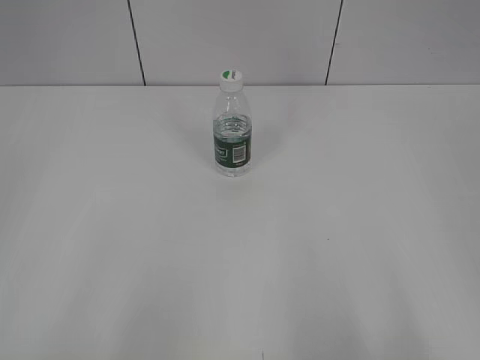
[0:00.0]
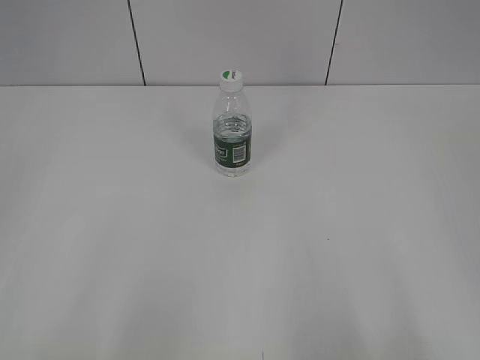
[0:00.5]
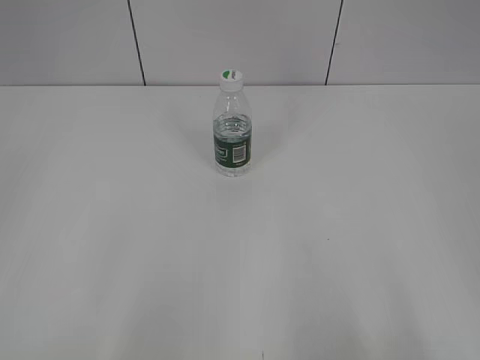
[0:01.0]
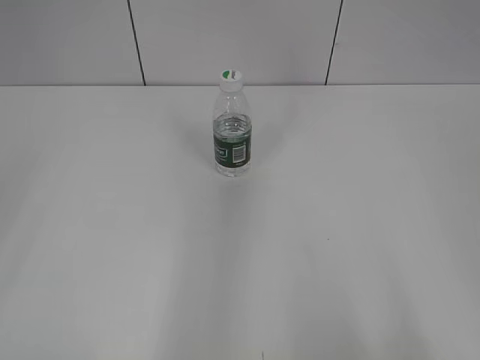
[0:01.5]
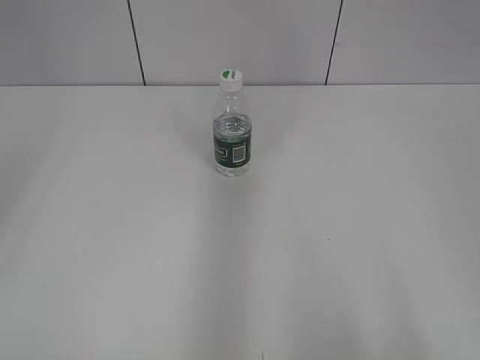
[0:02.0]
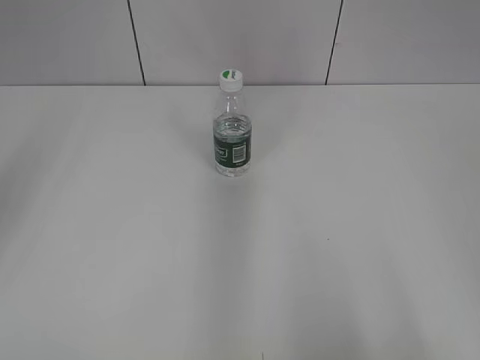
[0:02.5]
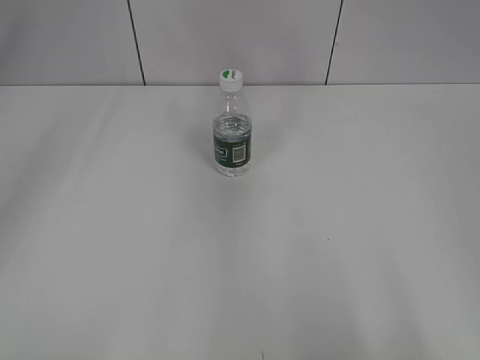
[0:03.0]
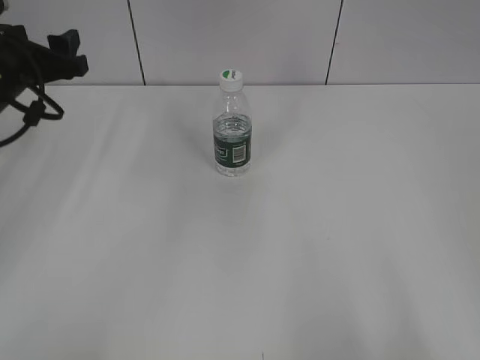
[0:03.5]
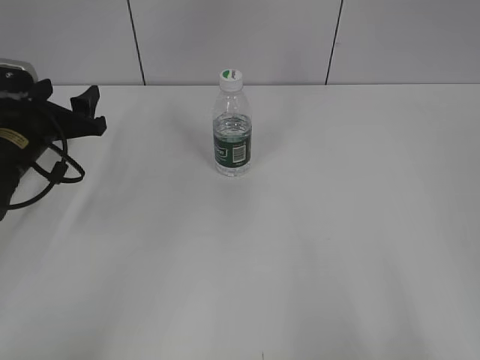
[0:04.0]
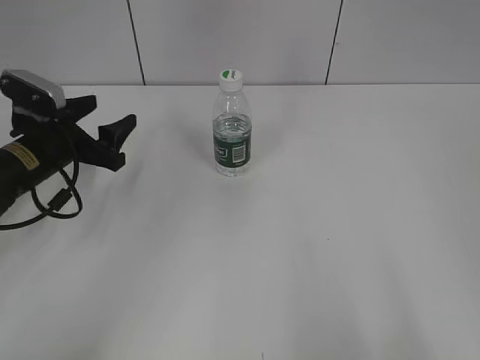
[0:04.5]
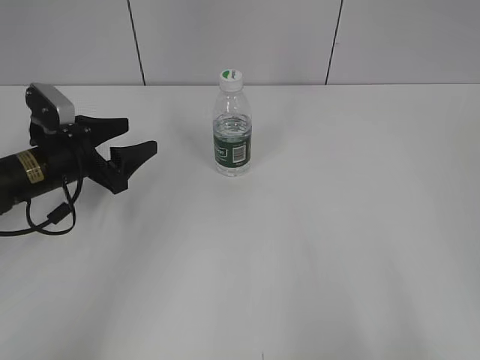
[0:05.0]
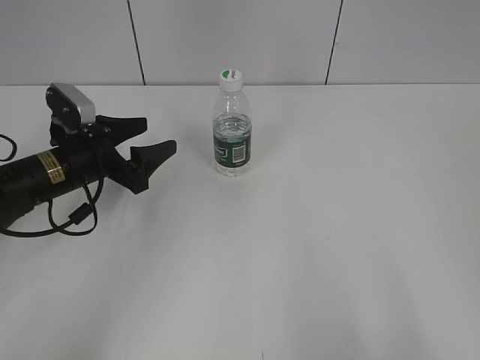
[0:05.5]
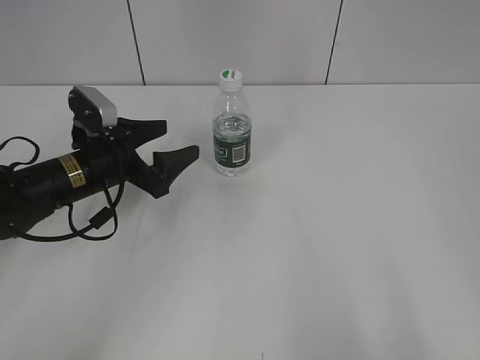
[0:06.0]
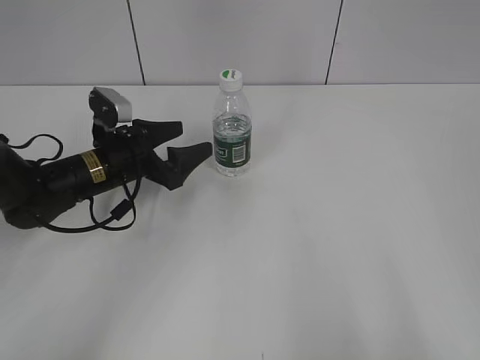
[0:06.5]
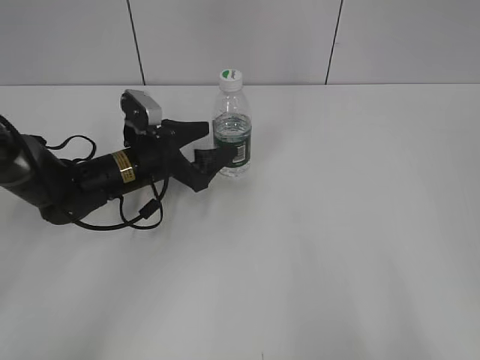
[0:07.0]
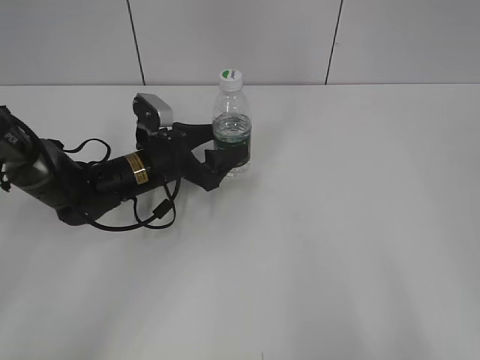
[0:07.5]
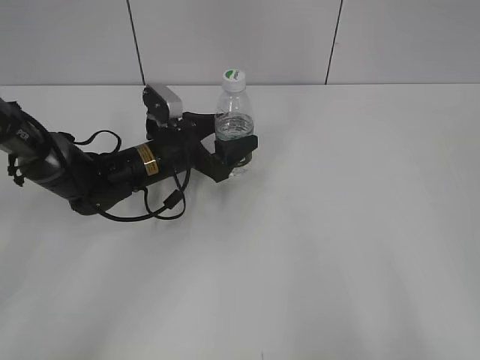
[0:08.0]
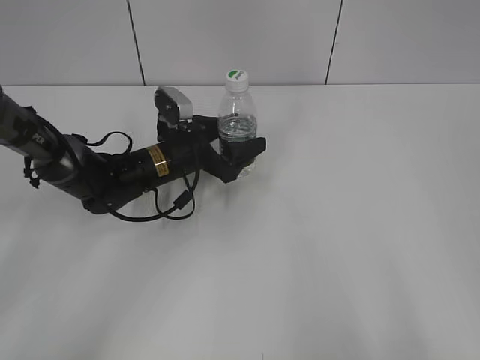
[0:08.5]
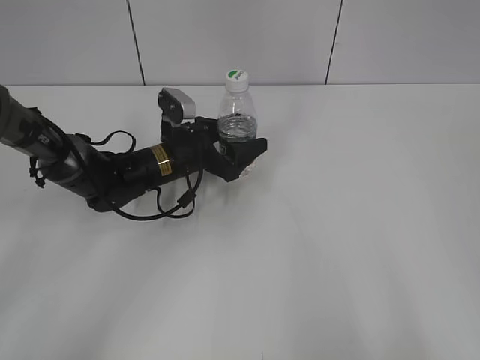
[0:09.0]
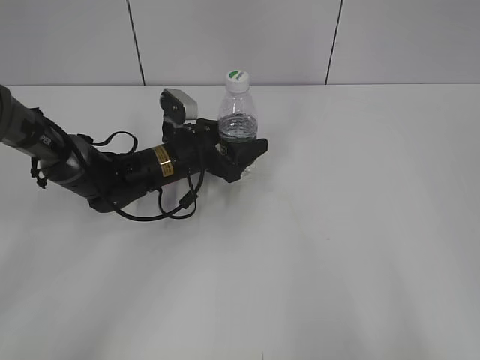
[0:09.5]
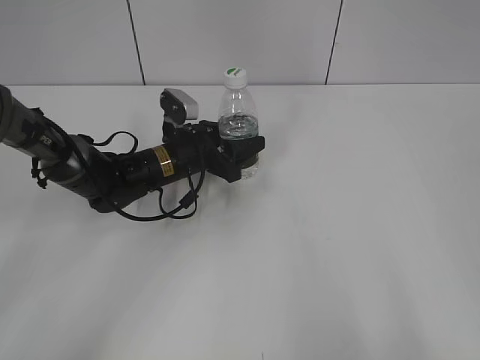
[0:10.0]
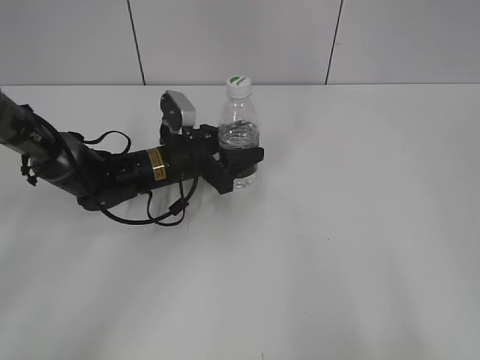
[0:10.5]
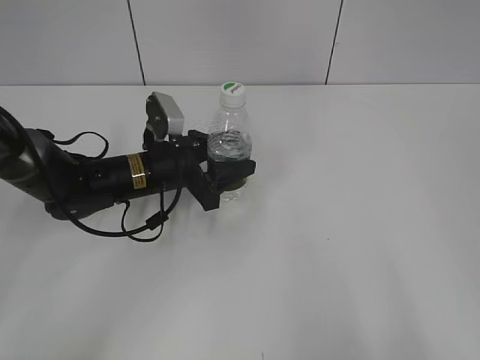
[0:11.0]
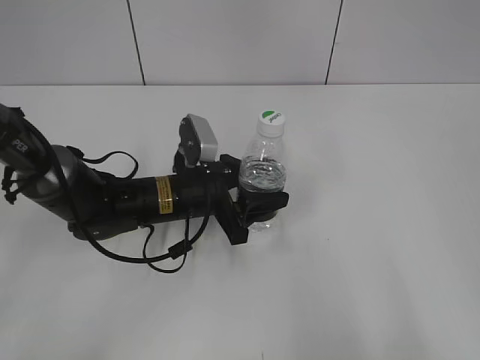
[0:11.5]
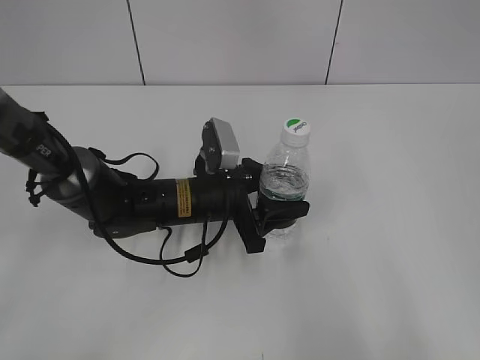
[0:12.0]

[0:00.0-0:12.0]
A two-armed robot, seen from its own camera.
Step, 0:00.0 to 0:09.5: Grasp the bottle and move it to the center of the table with the left gripper.
0:02.0 to 0:04.0: The left gripper shifts roughly 35 cm downward and forward.
0:04.0 to 0:06.0: The left gripper moves to the right, roughly 10 cm.
0:06.0 to 0:08.0: The left gripper shifts some 10 cm to the right and forward.
0:08.0 to 0:10.0: The left gripper closes its fingers.
0:10.0 to 0:12.0: The left gripper heads backward, covering about 10 cm.

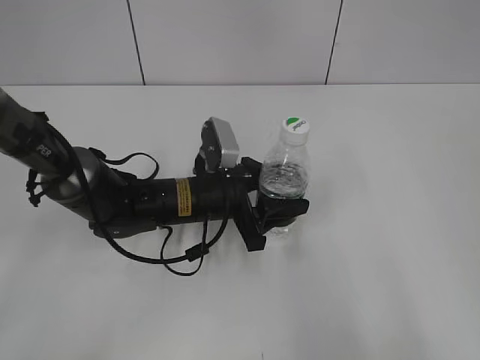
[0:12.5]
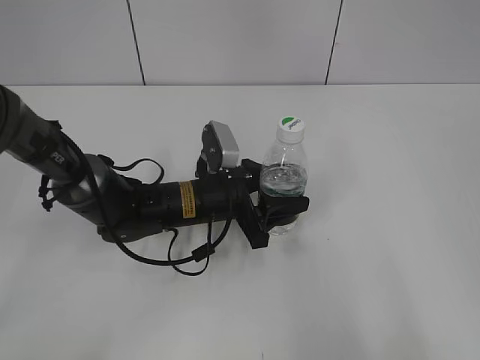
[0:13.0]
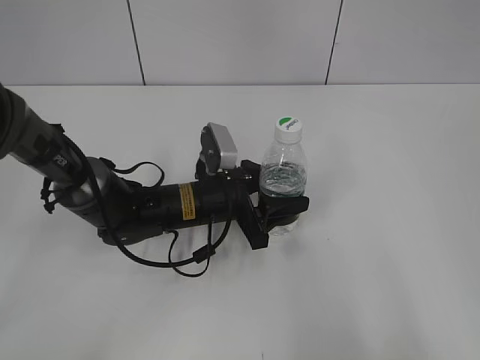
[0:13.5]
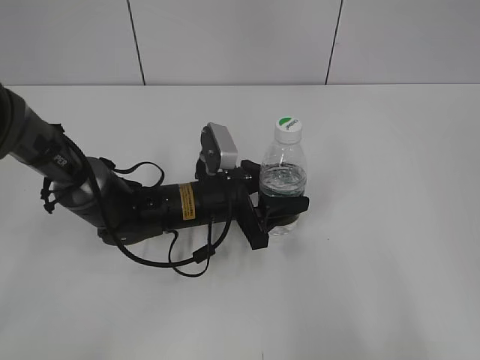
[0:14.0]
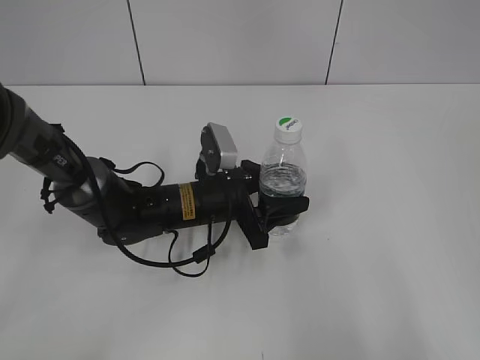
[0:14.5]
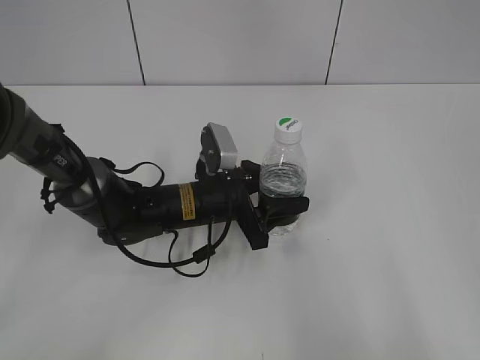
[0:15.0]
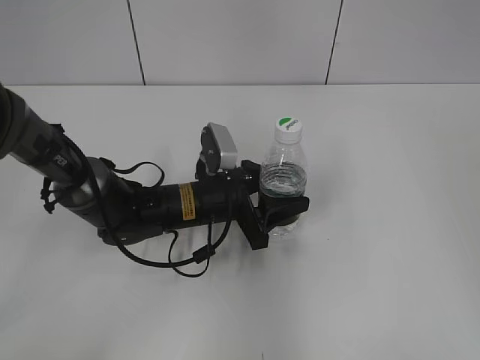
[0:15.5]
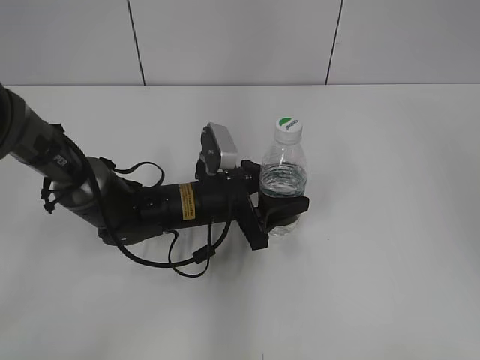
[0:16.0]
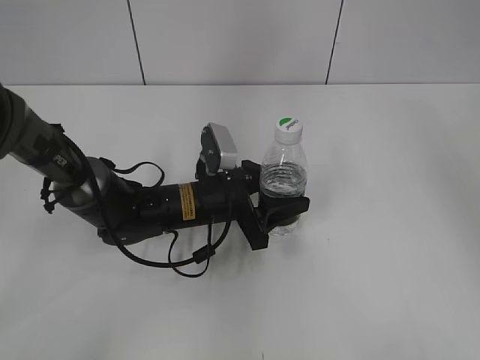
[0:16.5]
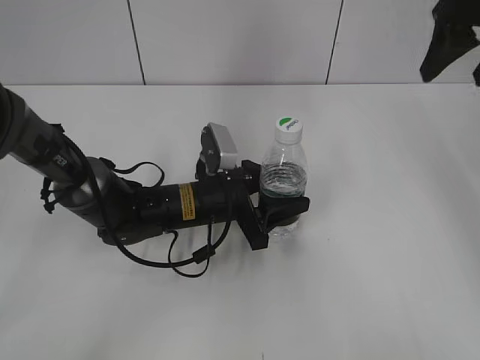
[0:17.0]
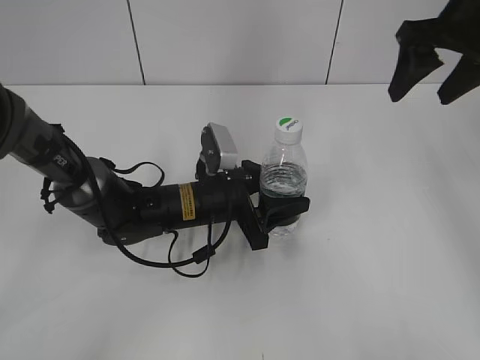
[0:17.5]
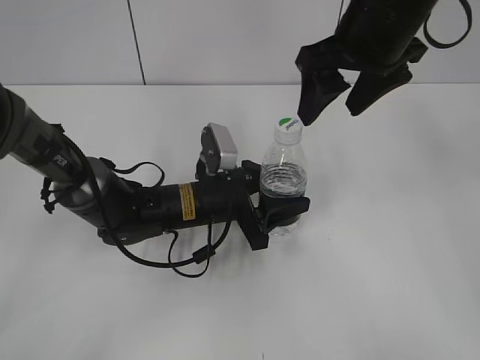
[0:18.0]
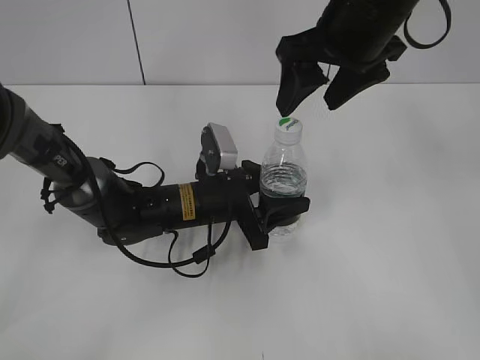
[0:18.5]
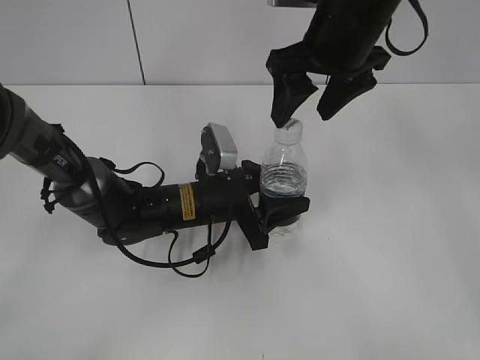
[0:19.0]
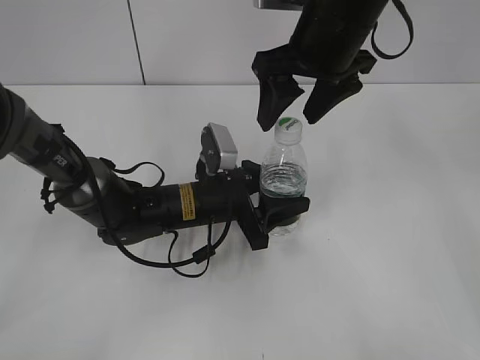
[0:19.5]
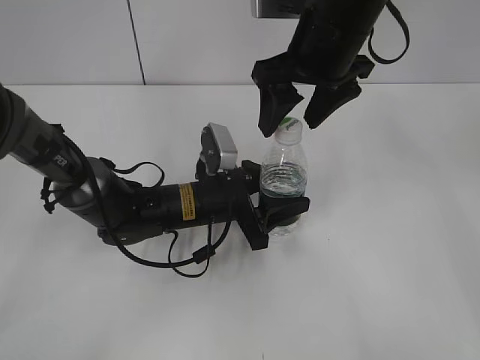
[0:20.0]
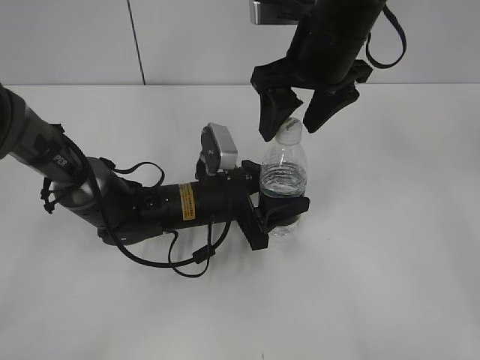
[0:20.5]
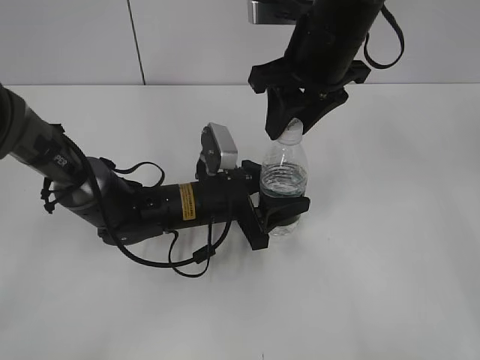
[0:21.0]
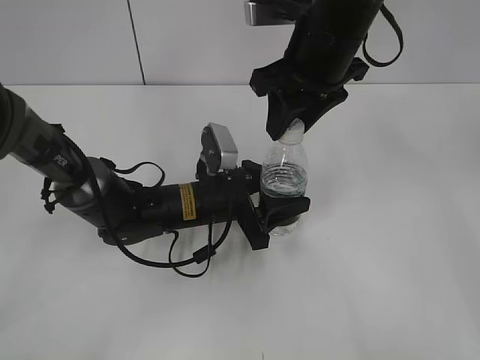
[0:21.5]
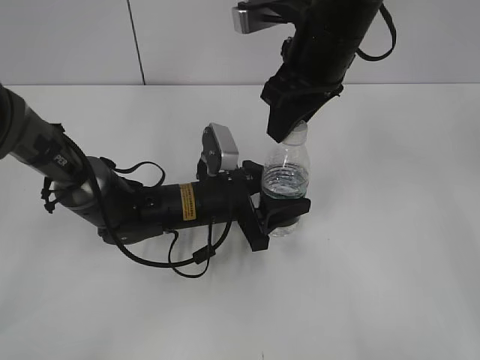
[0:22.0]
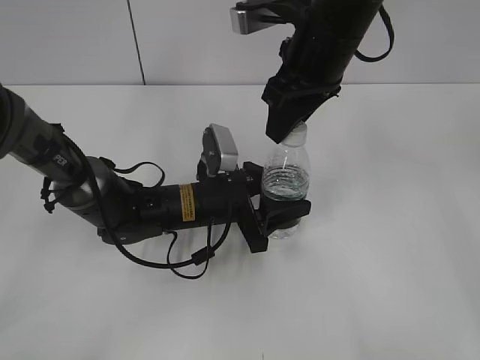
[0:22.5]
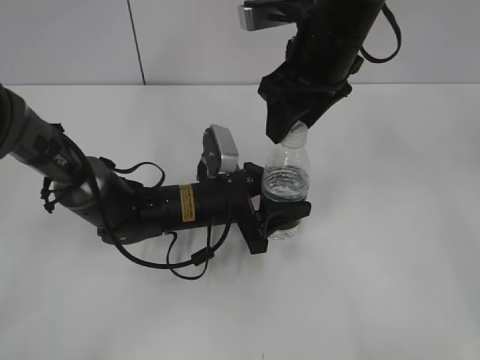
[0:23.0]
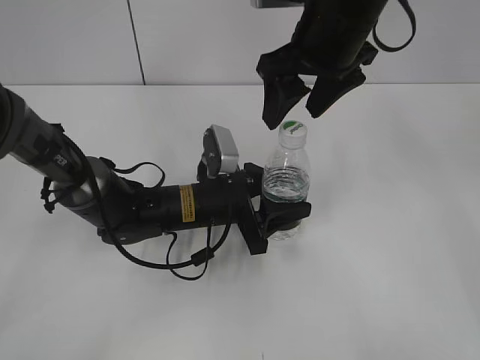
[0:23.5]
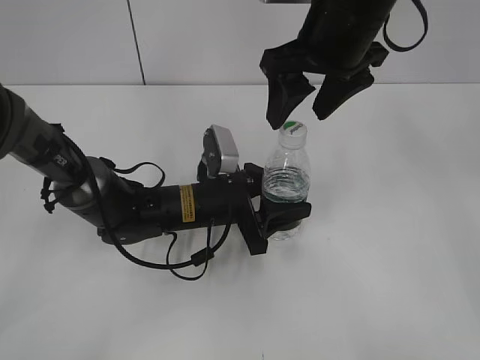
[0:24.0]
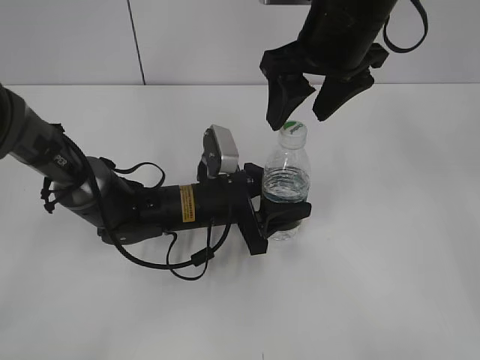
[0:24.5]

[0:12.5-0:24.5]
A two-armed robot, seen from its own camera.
0:12.5 to 0:14.5: The grippers move only a little.
0:14.5 to 0:16.5: The right gripper heads forward, covering roughly 30 cm.
0:16.5 to 0:18.5: The right gripper is displaced to the left and downward by roughly 20 cm.
0:18.5 to 0:20.5: The grippers make only small movements.
0:20.5 to 0:22.5: The right gripper closes.
0:22.5 to 0:24.5: The right gripper opens.

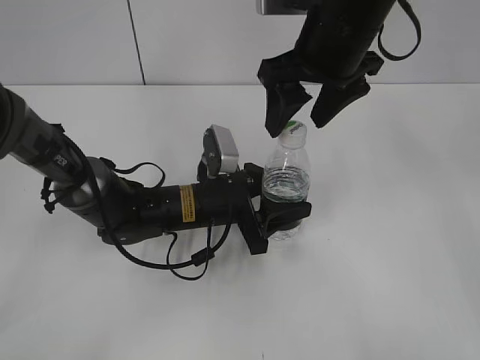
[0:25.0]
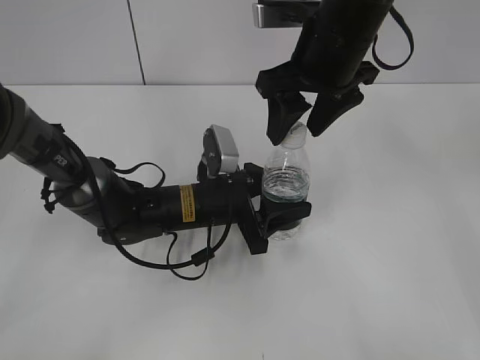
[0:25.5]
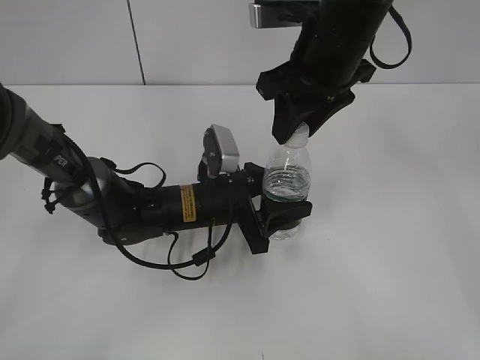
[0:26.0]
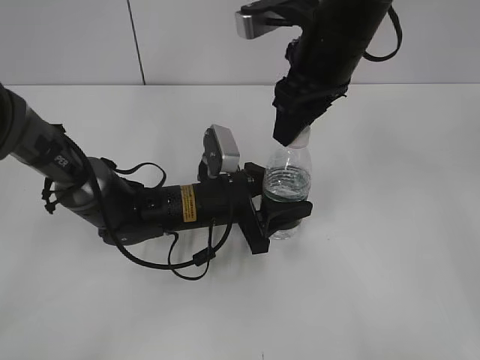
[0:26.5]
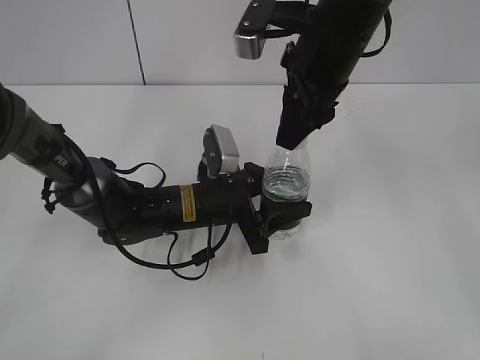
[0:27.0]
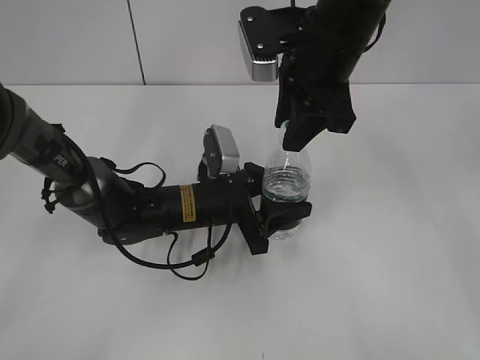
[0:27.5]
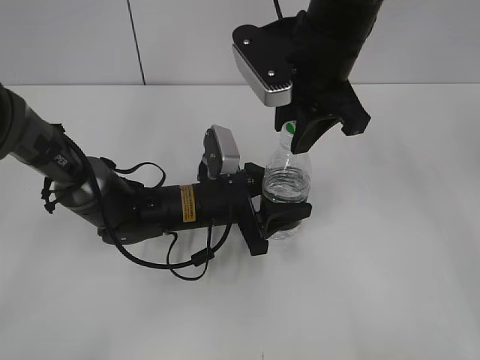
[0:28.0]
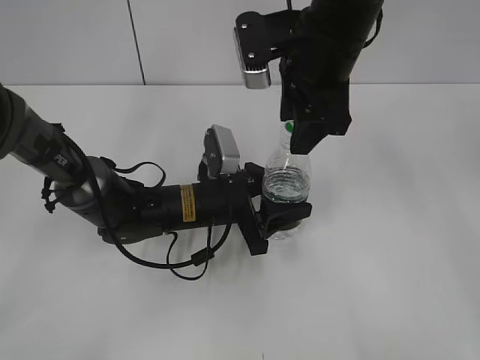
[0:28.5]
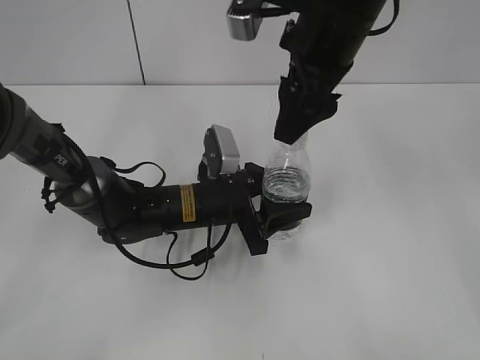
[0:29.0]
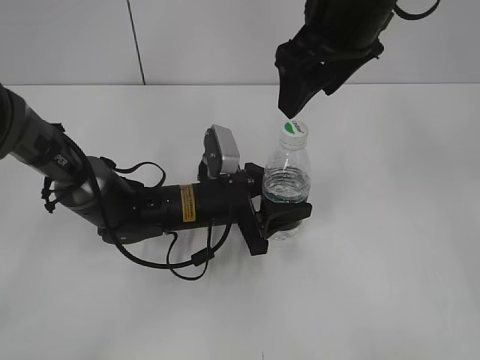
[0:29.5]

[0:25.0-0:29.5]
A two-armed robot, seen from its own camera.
0:25.0 to 0:27.0: The right gripper closes up.
0:27.0 to 0:29.5: The right gripper ends up some 5 cm from where it was, and opens.
